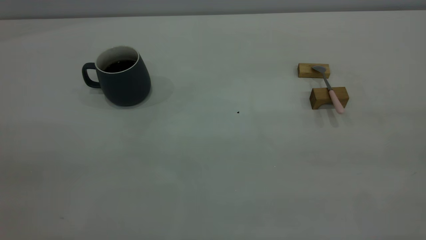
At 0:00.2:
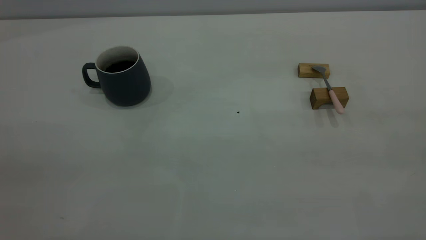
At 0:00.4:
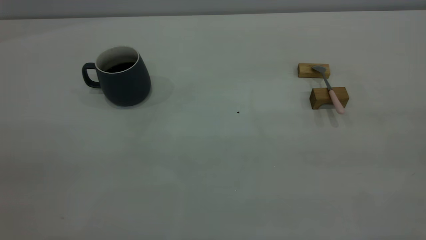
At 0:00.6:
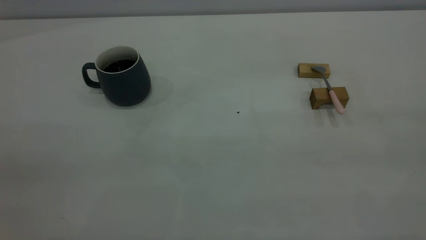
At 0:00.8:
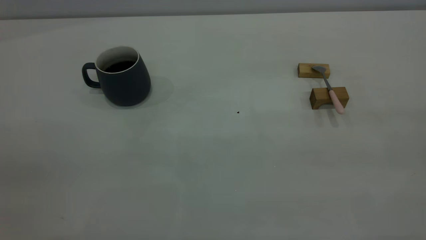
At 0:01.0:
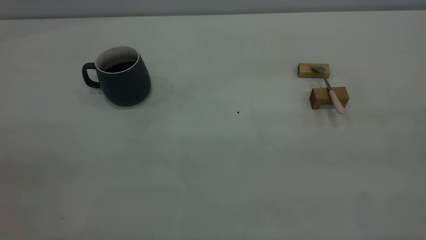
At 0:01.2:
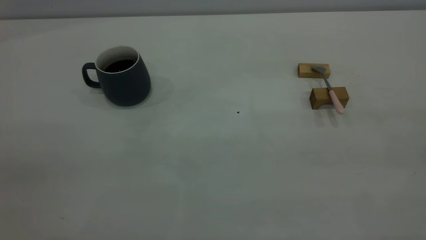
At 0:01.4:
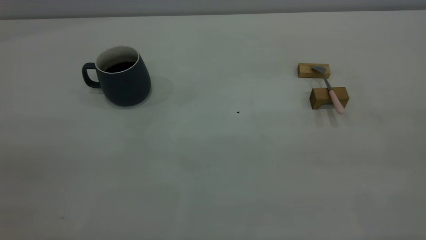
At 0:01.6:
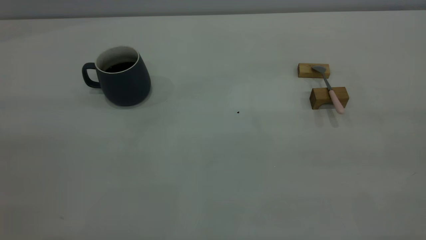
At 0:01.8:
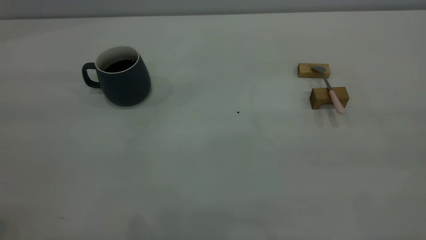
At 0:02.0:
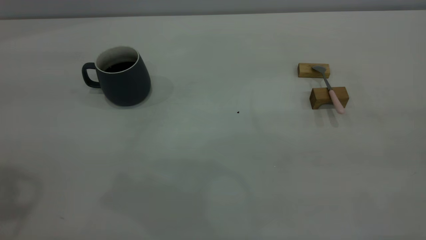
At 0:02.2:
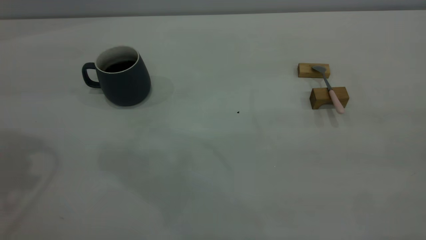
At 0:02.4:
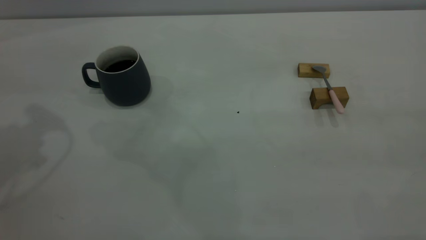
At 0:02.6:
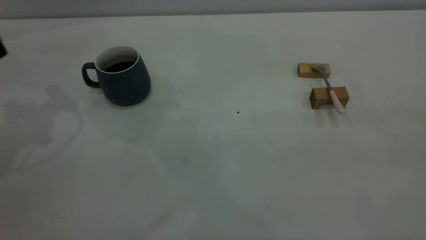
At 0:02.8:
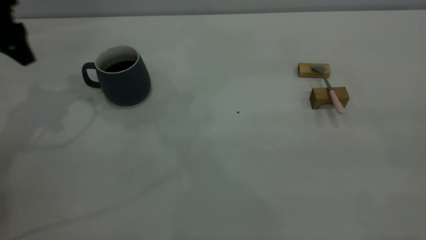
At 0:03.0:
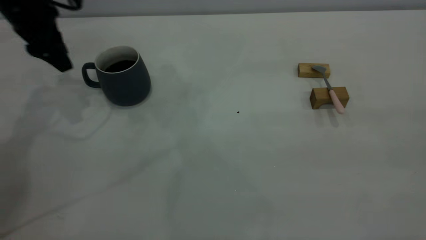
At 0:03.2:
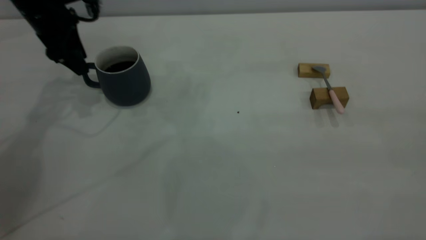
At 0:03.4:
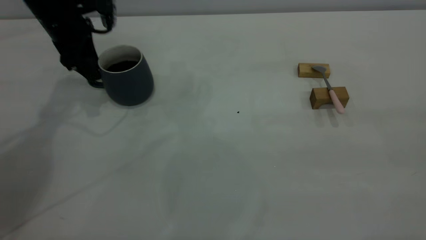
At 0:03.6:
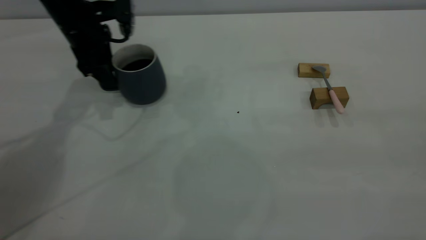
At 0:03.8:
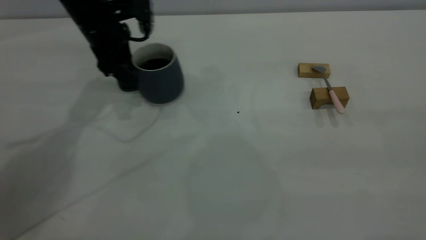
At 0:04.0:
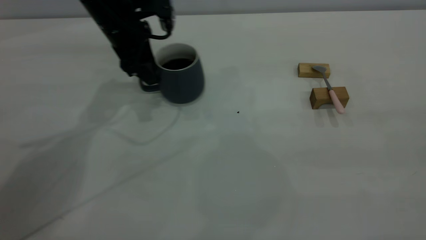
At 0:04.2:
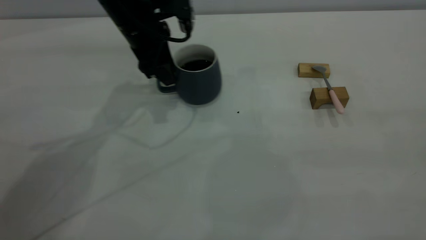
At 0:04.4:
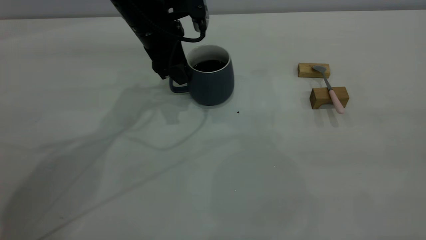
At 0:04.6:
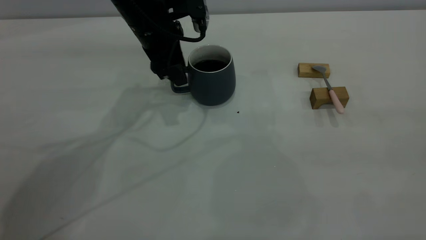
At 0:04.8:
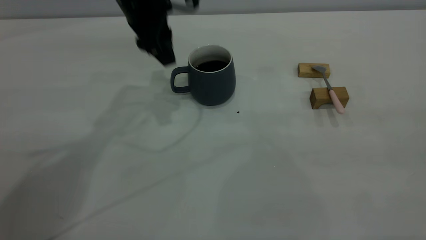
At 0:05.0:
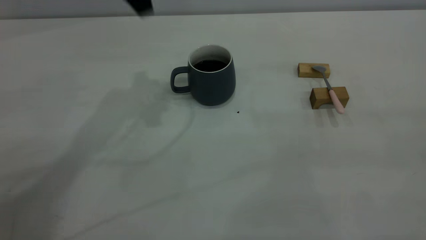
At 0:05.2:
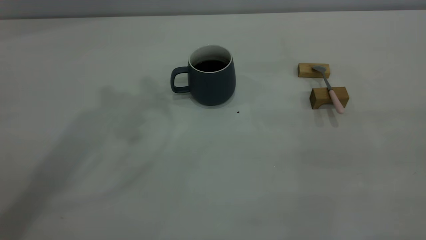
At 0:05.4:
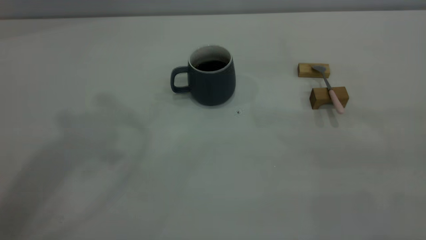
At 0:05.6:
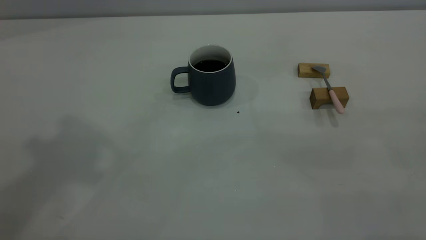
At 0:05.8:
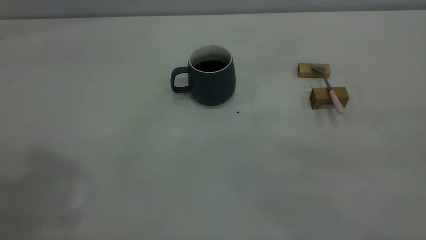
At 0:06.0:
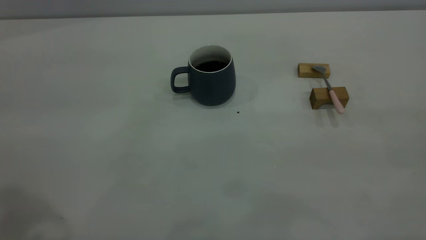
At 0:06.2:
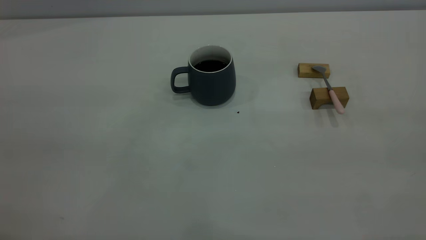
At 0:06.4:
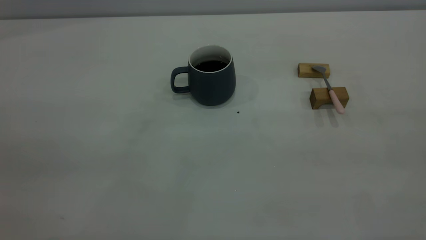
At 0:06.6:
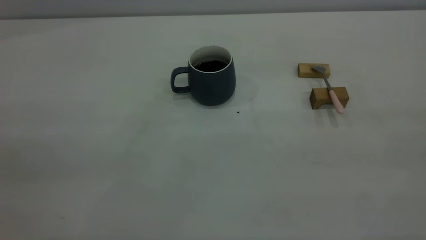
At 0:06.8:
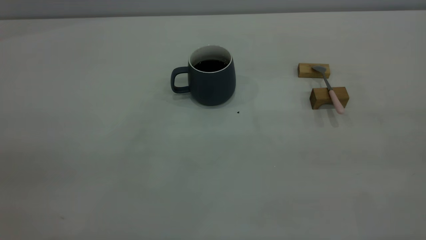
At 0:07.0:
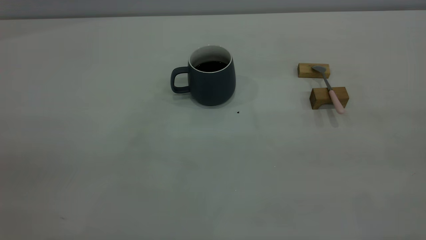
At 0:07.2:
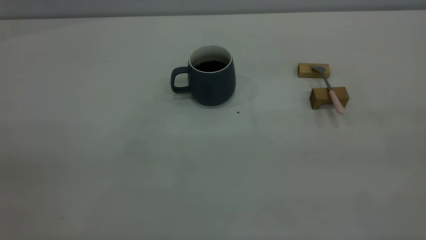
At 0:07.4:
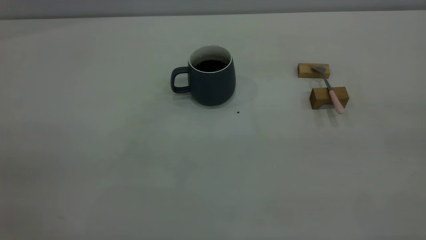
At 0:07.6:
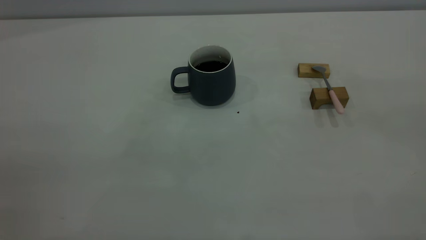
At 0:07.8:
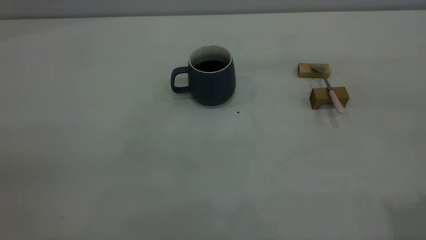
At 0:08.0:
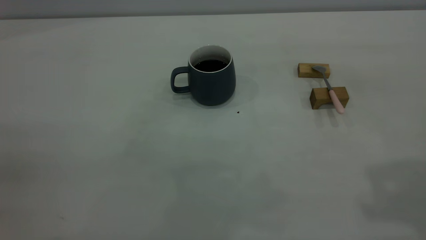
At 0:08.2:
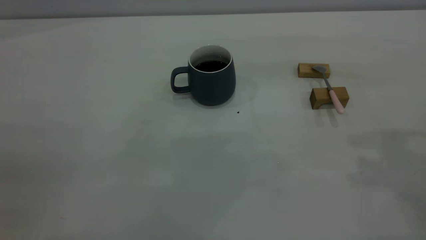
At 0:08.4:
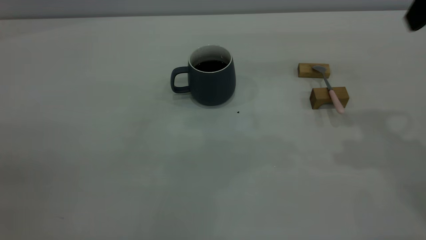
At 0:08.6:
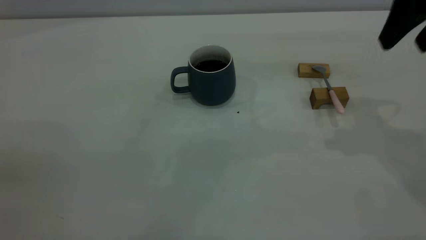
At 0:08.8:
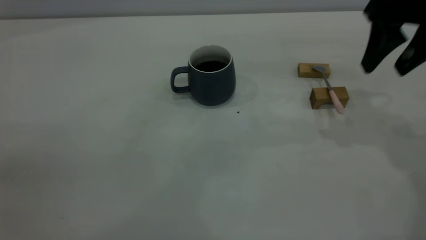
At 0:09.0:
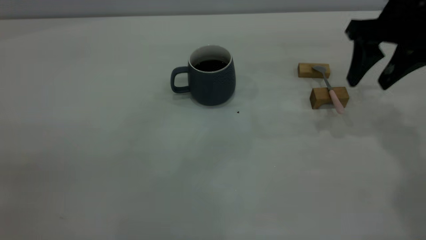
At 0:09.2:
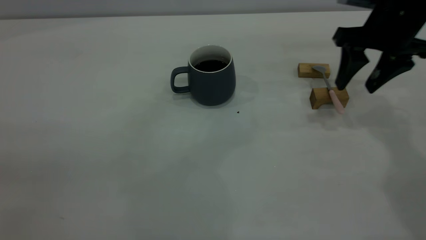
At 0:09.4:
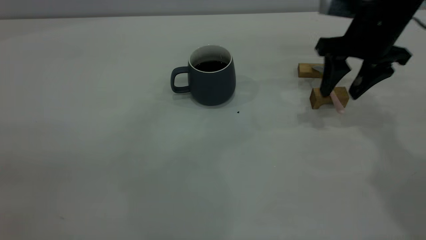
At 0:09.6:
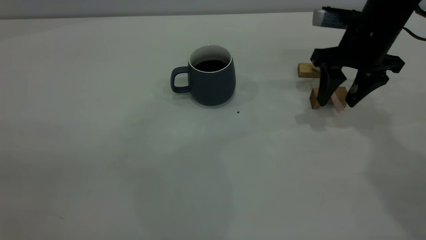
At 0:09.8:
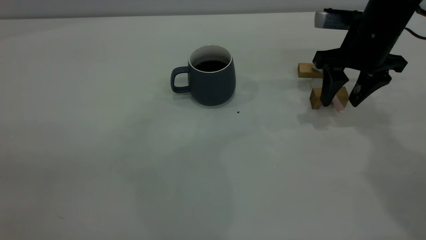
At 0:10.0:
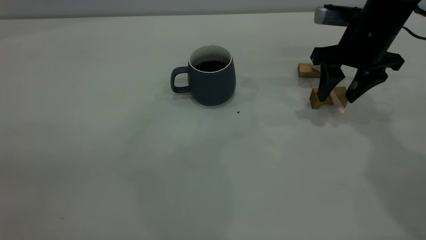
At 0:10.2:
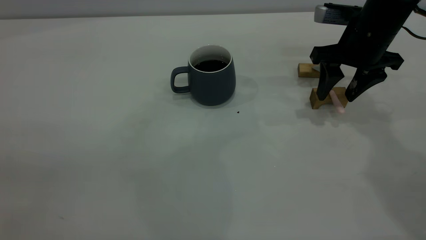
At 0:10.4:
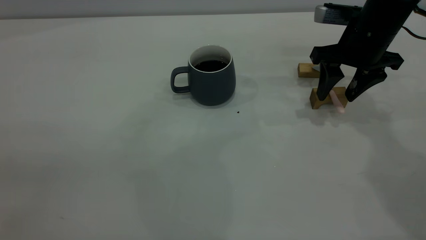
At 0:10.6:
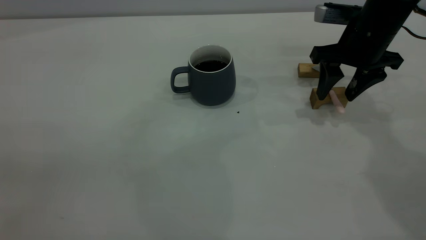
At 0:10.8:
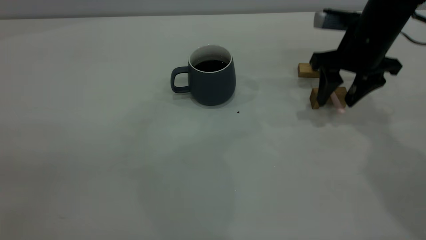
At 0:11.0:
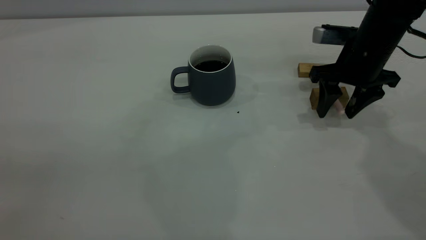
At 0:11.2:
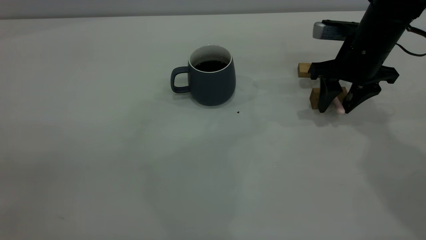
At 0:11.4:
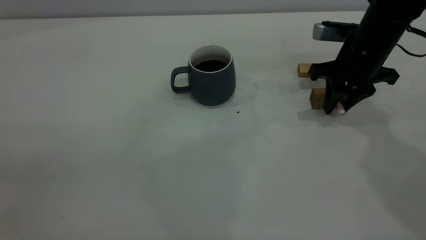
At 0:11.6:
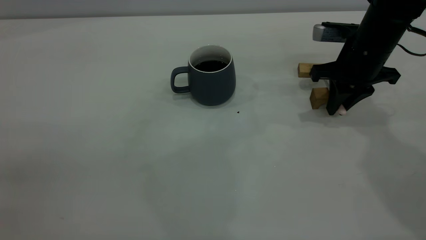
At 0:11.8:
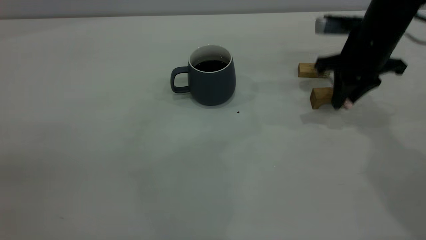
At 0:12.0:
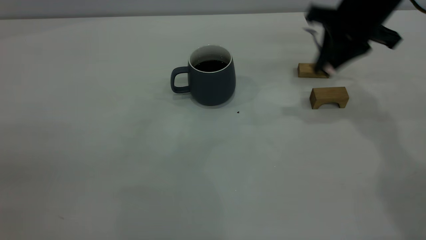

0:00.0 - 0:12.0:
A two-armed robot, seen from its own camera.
Step, 0:00.0 - 0:04.8: Move the cup with coffee to the center of view.
Step, 0:05.0 - 0:11.8: Pick up the spoon.
0:01.6 - 0:03.0: The left gripper moves forward and downward, about 40 cm.
0:03.0 - 0:04.4: The left gripper shifts about 20 cm to the right.
0:04.4 - 0:06.0: The left gripper is displaced backward, upward and to the left by approximately 40 cm.
0:07.6 - 0:09.0: The right gripper goes some 40 cm forward and downward.
0:09.0 - 0:10.4: The right gripper shifts about 5 cm downward.
0:10.4 - 0:12.0: The right gripper is displaced upward by roughly 5 cm, and closes up.

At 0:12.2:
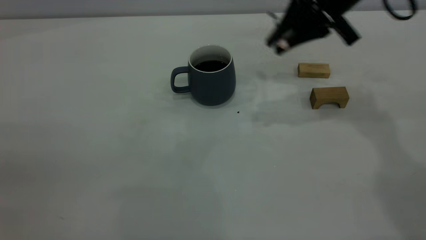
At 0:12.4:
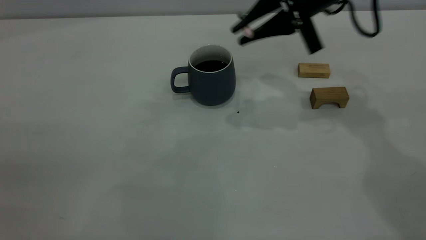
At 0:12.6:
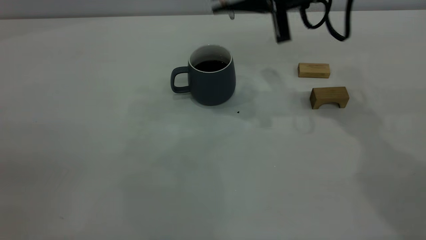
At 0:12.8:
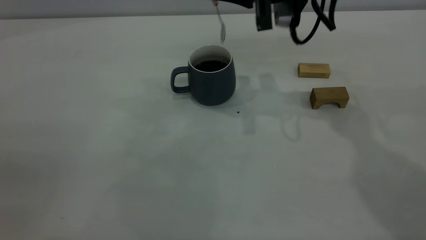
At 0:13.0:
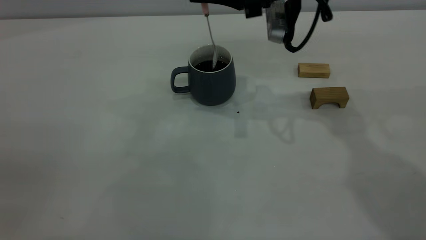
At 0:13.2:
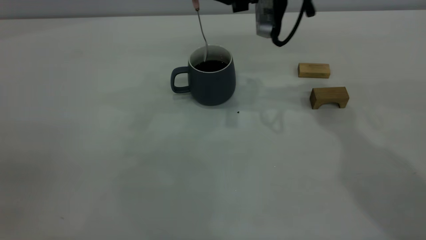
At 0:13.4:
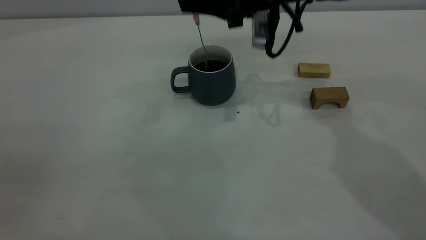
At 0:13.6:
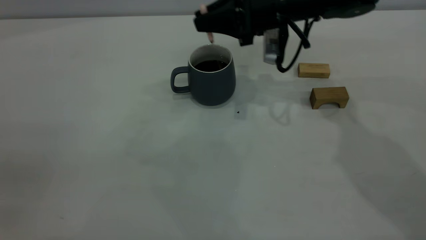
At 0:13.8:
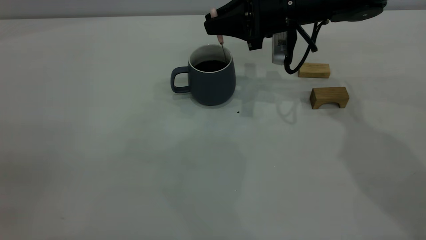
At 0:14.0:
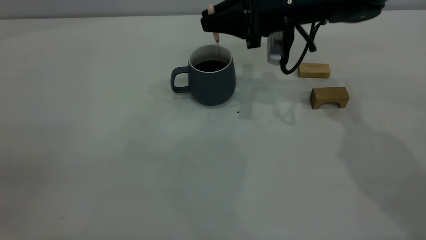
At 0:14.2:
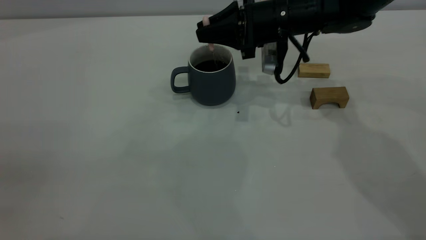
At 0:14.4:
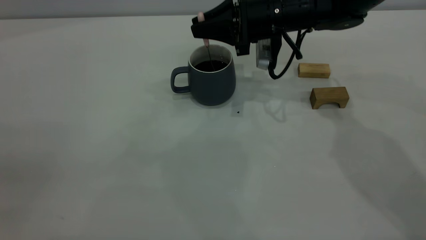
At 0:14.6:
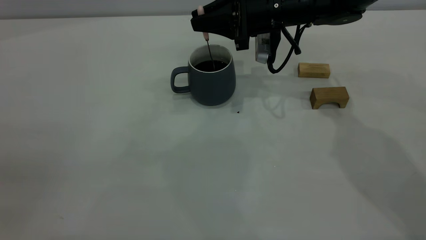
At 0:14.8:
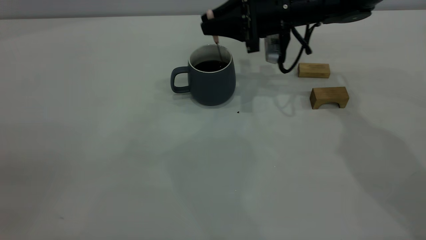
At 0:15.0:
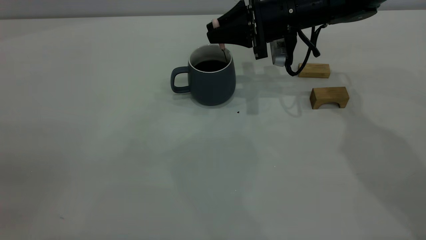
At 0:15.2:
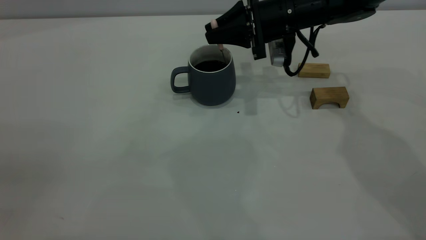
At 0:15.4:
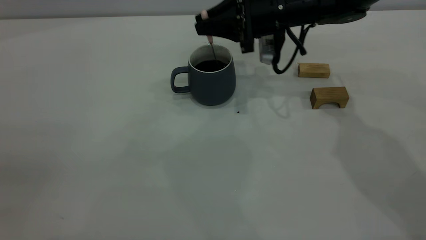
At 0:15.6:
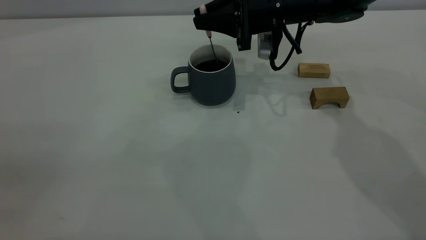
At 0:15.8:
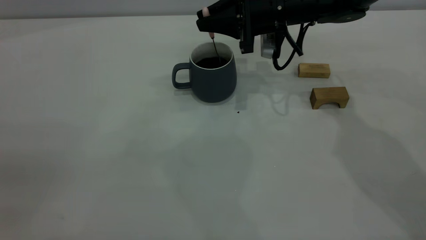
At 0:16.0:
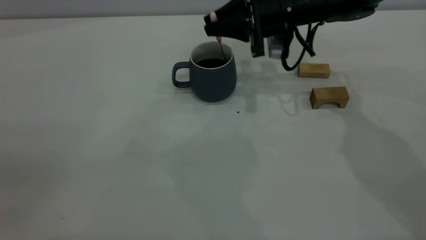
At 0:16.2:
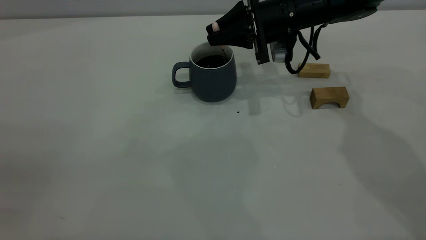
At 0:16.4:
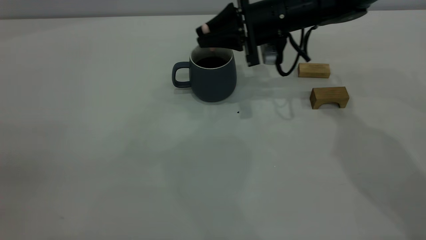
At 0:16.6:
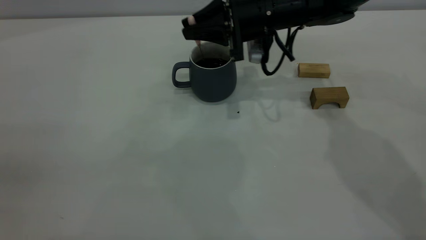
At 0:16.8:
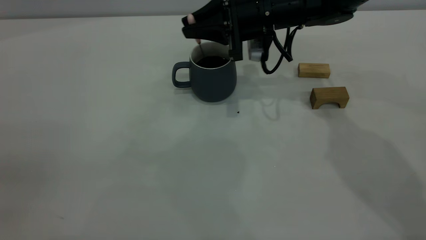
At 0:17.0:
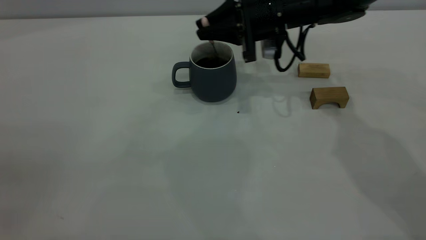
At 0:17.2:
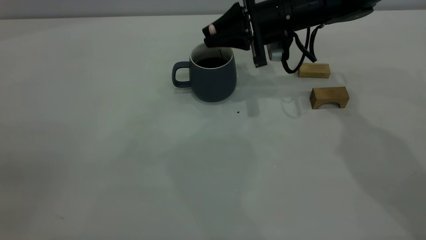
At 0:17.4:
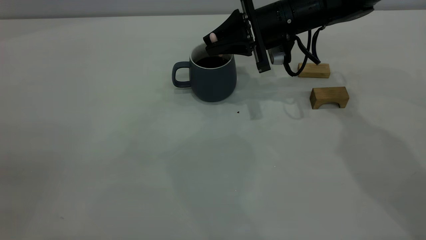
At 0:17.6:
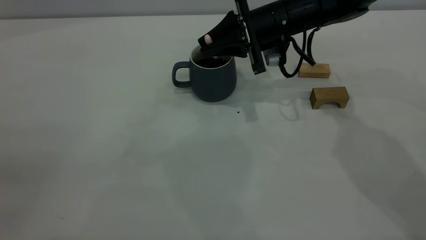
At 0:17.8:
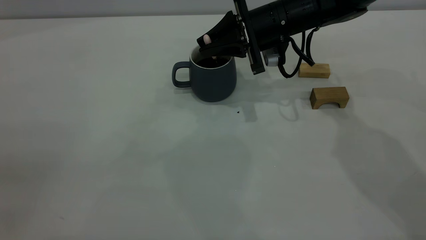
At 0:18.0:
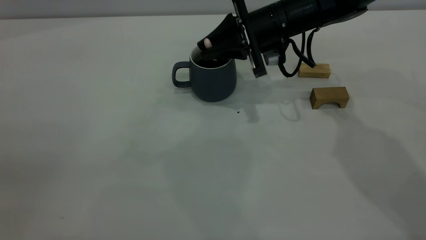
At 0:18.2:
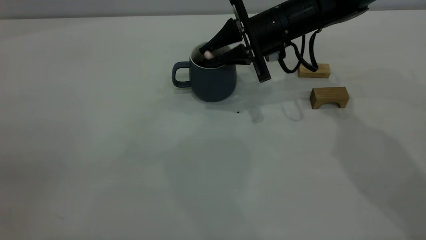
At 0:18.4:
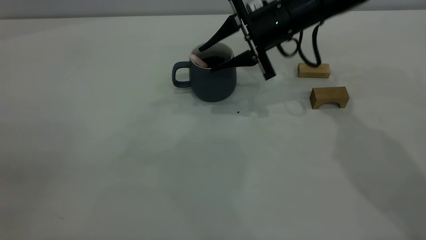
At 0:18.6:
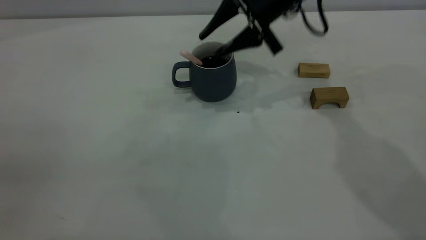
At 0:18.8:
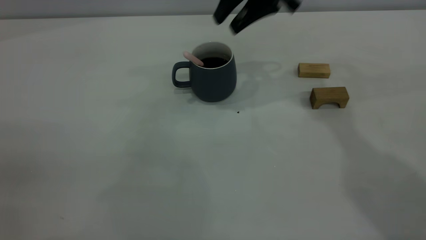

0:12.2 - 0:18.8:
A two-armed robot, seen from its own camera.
Step, 0:12.2 - 0:18.6: Stir the coffee in the cup.
0:12.2 - 0:13.8: The right gripper moves downward, forward and to the left, roughly 10 cm.
0:13.8 - 0:15.4: The grippers make only small movements.
0:15.4 - 0:17.2: The grippers make only small movements.
0:17.2 - 0:18.8: The right gripper shifts some 15 cm upward, and opens up.
